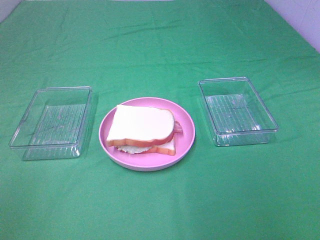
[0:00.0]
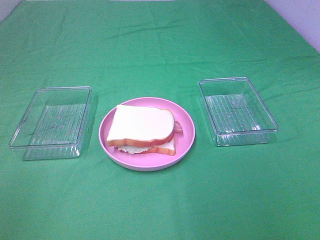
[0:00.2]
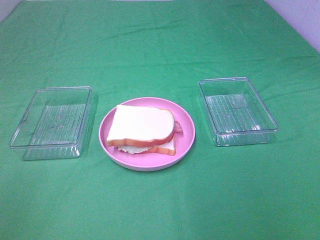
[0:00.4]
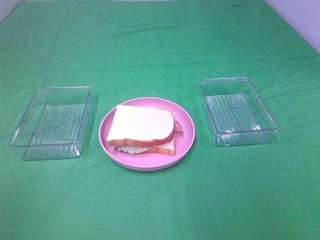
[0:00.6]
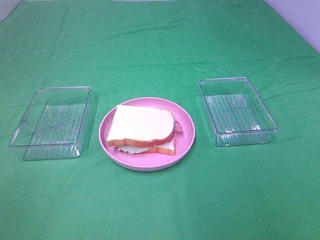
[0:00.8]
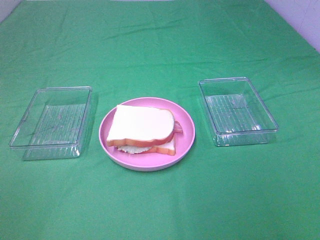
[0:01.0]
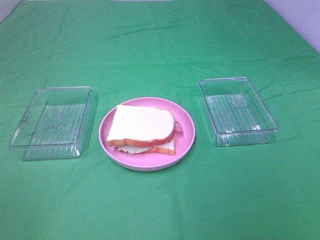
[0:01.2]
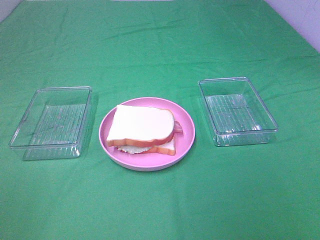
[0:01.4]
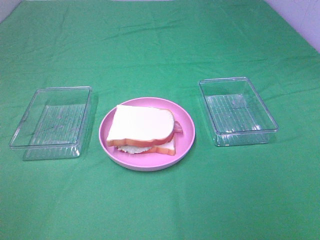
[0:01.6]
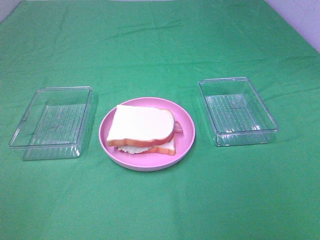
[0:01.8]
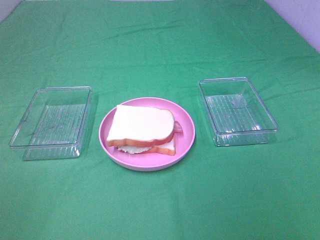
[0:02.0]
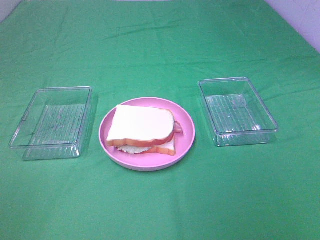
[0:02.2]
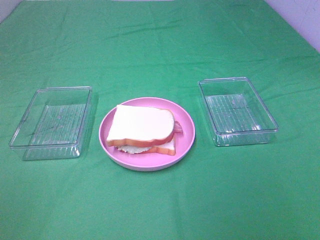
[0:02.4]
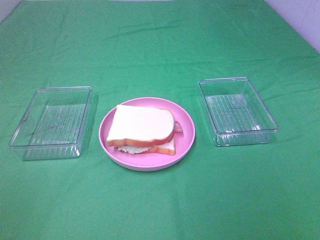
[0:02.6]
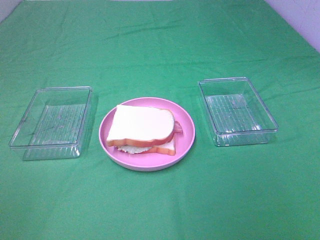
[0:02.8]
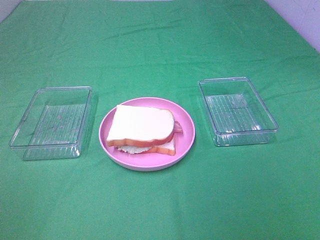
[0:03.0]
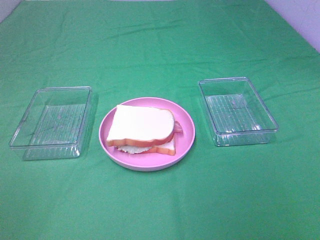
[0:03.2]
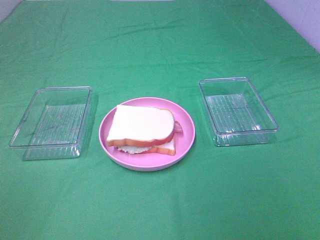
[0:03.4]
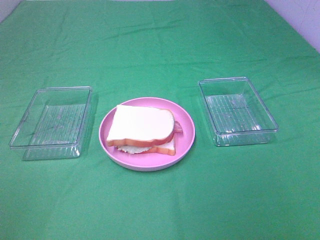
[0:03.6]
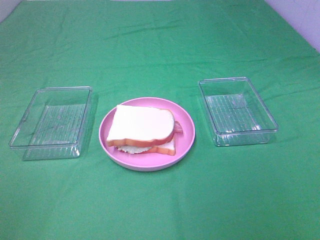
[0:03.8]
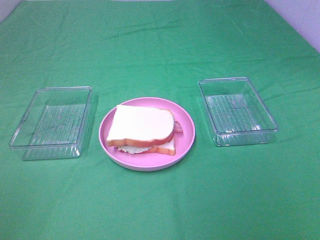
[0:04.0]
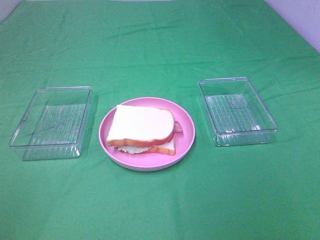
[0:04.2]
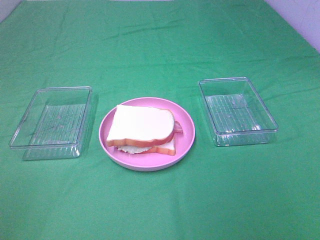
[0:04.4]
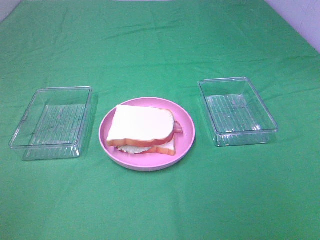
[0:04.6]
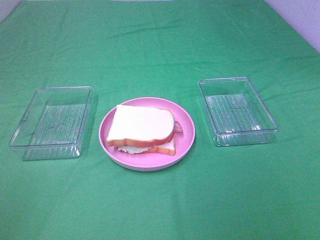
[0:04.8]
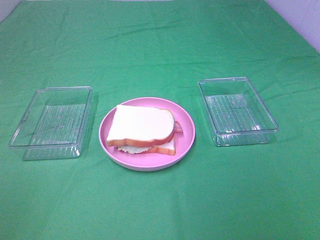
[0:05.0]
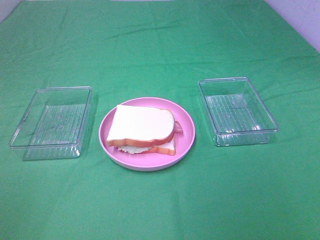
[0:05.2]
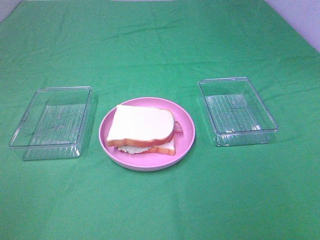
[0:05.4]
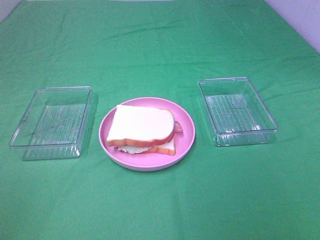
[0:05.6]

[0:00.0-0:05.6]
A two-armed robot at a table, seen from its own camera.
Task of the whole recording: Make sandwiches.
1.4 to 2.8 s: Neither gripper changes place.
2.8 to 5.6 s: Both grippers stay about where they are.

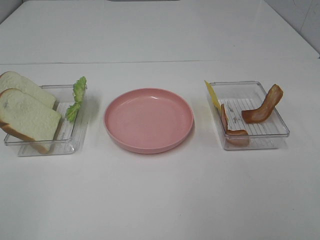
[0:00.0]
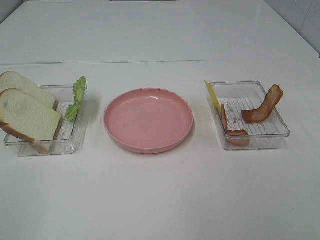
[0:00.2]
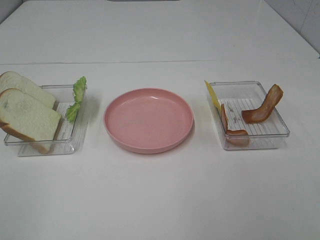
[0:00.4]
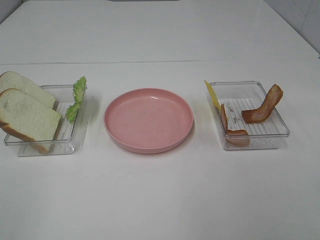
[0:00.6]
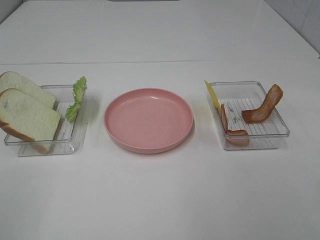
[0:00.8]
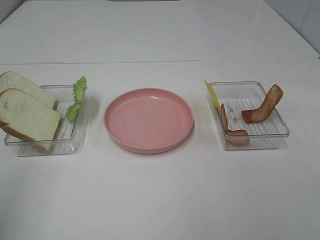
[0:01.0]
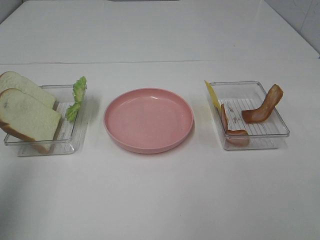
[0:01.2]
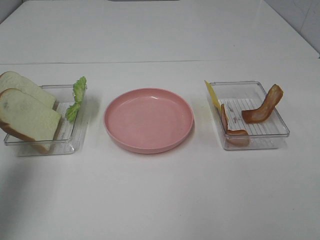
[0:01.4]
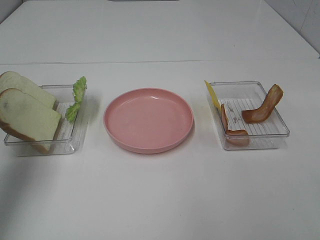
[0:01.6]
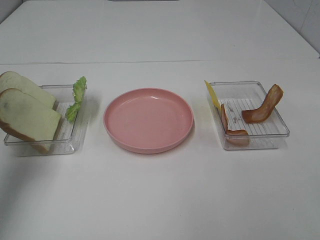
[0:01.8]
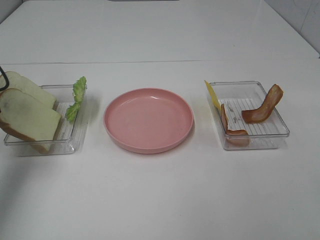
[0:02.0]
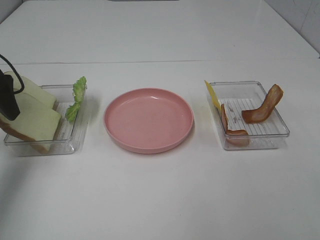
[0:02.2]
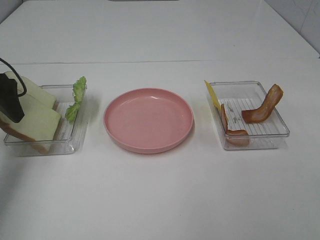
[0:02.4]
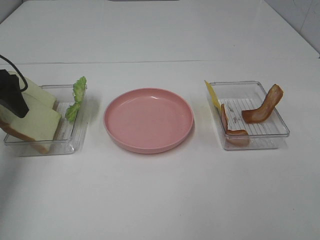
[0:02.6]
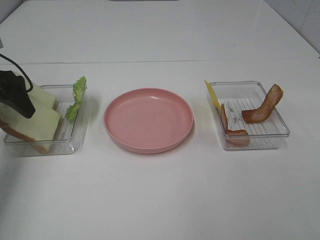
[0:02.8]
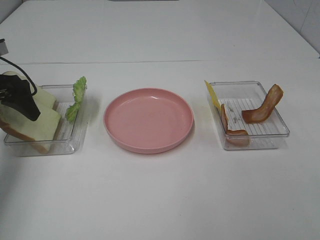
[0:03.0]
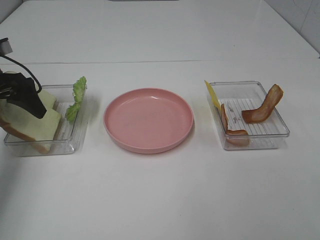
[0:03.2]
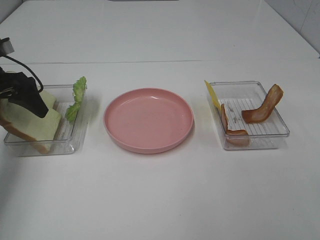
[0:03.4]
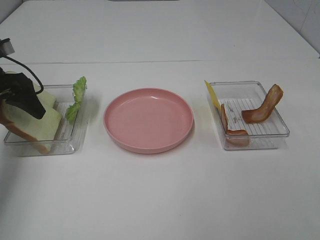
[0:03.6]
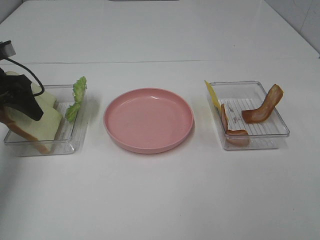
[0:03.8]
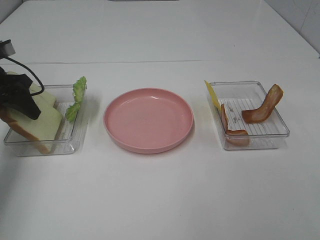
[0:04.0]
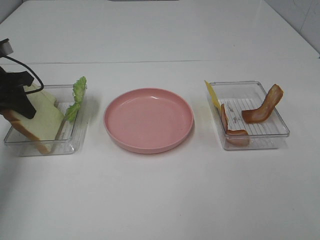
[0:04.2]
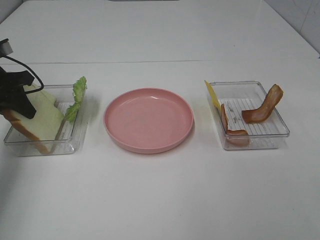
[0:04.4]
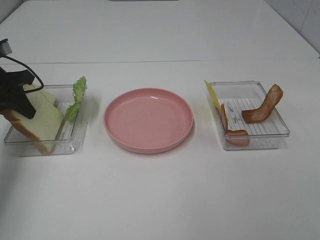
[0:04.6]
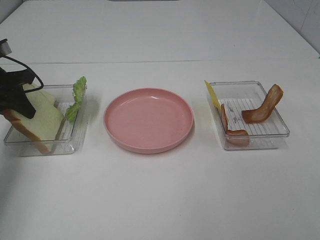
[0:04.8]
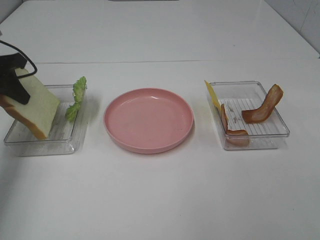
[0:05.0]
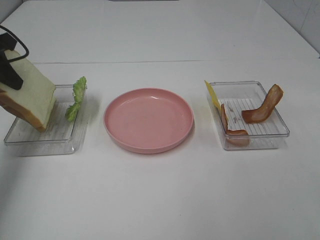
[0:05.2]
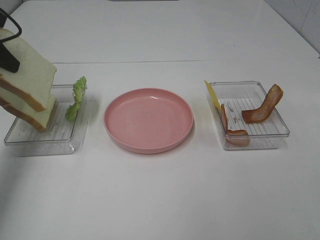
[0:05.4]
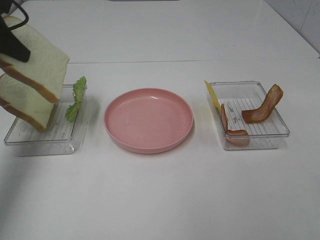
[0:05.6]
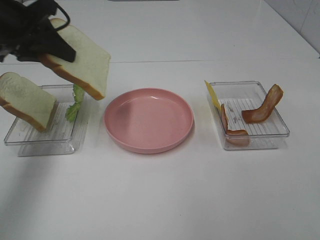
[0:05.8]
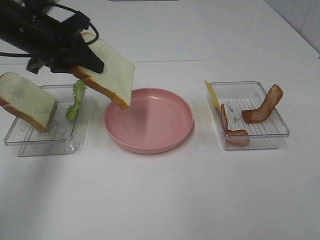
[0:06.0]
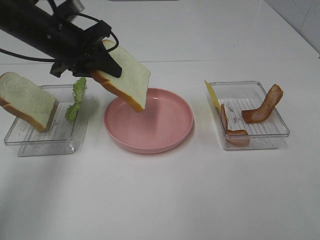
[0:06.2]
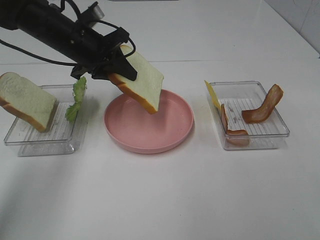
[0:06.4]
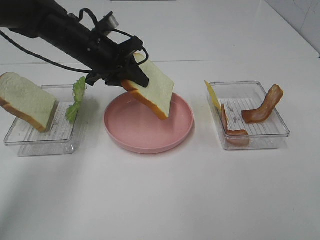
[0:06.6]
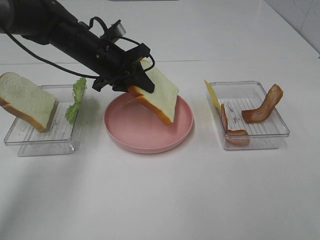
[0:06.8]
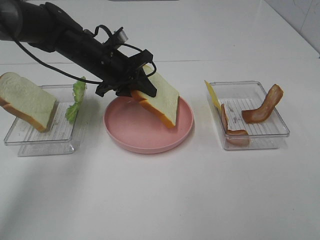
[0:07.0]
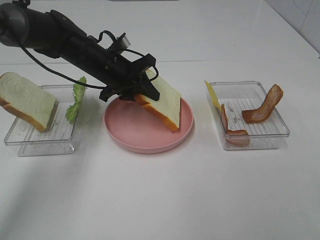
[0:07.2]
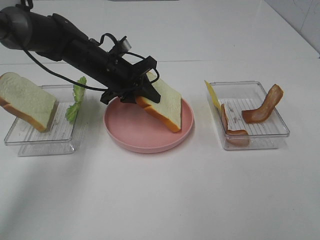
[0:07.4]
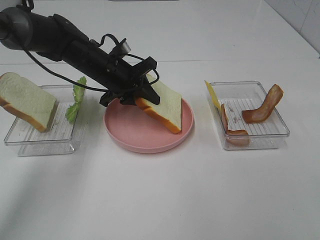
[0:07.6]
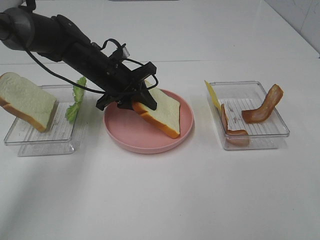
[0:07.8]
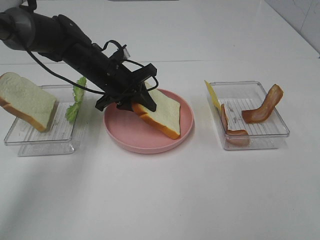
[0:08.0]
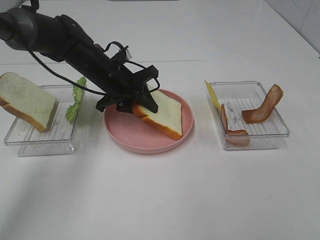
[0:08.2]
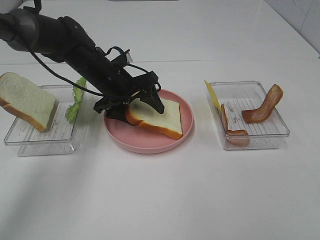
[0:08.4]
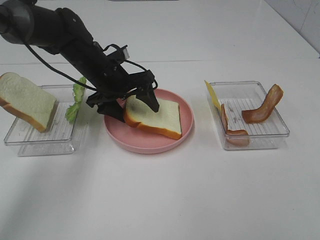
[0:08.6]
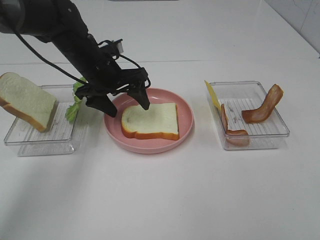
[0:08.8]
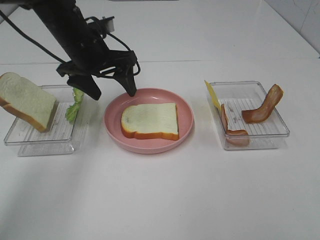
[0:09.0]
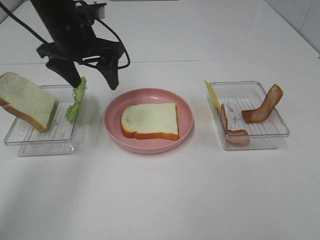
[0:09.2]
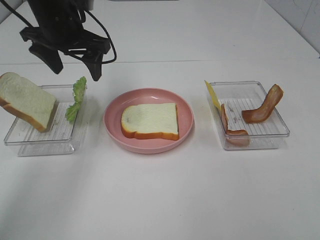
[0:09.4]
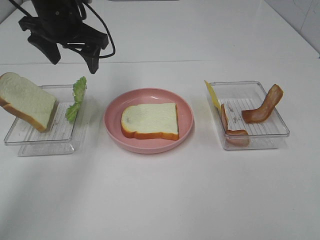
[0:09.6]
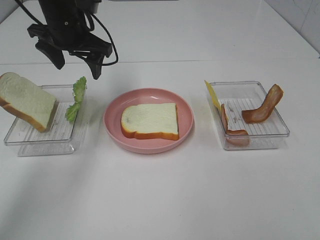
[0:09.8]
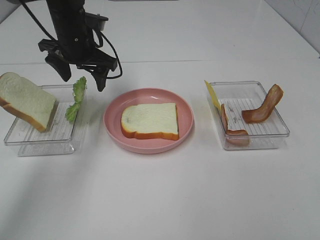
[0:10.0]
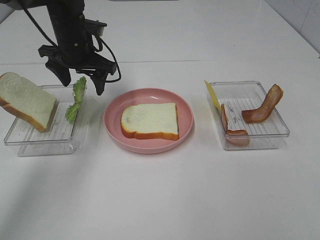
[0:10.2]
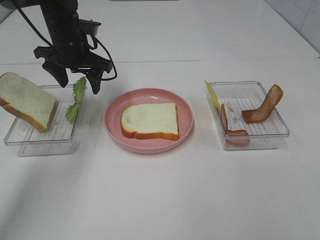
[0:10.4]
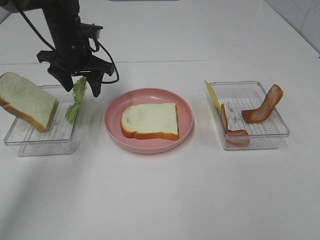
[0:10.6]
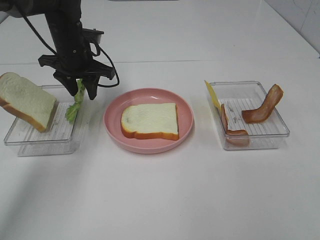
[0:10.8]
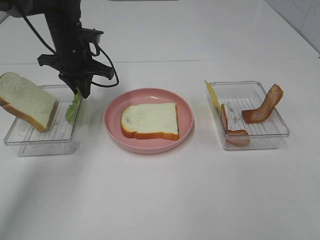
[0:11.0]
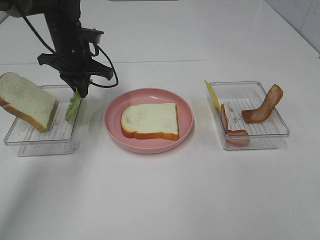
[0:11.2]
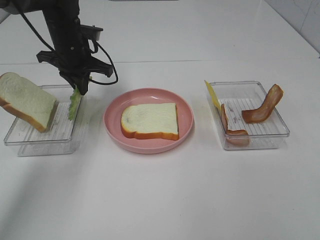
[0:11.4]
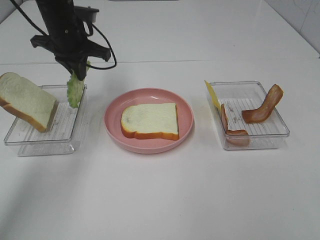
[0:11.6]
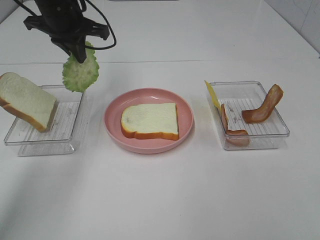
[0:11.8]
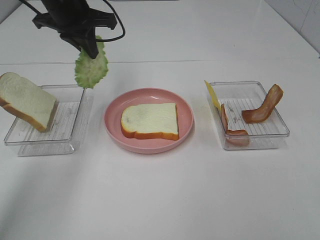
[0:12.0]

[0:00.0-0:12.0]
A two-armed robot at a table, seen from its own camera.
Task of the whole recording: Make sandwiches.
Step, 0.0 to 4.4 s: Left hand:grab the bread slice.
Step, 4.6 to 8.8 s: Left hand:place the bread slice on the plate.
Step, 9.0 to 11.2 s: Left hand:grab the lettuce slice.
0.0 to 1.6 s: The left gripper heads forward, covering about 25 cm.
1.6 to 3.0 s: The left gripper goes approximately 15 cm downward and forward.
3.0 to 4.4 s: The left gripper closes its fingers.
4.4 to 6.0 s: The left gripper shifts about 15 cm to the right and upward.
6.0 to 7.6 s: The left gripper is displaced downward, to the right and forward by some 15 cm.
7.6 to 9.0 s: The left gripper is displaced upward by approximately 10 cm, and opens up.
9.0 to 10.4 s: The left gripper shifts about 5 cm forward.
10.4 to 12.0 s: The left gripper is displaced upward by some 10 cm, and closes.

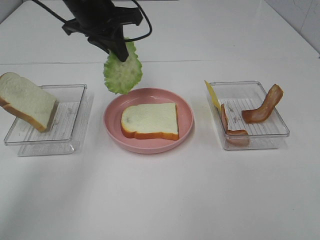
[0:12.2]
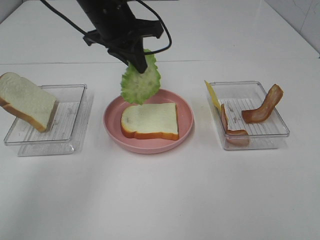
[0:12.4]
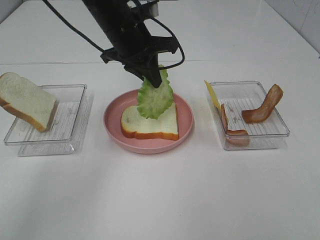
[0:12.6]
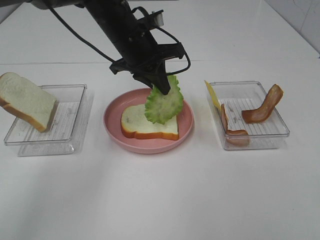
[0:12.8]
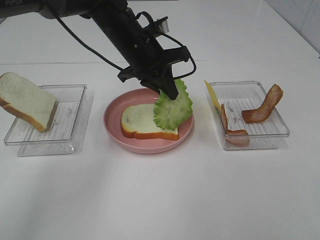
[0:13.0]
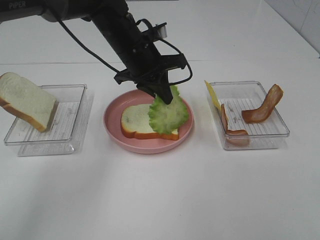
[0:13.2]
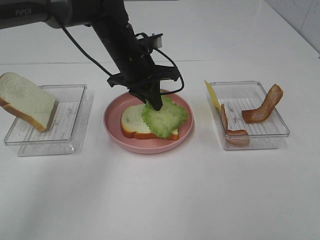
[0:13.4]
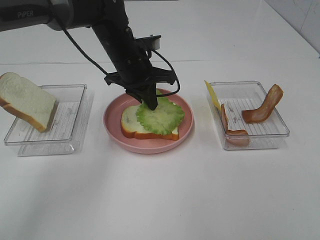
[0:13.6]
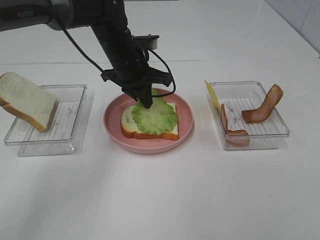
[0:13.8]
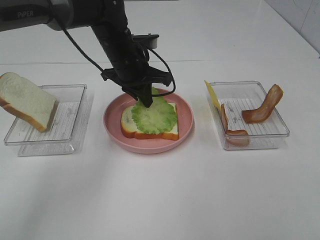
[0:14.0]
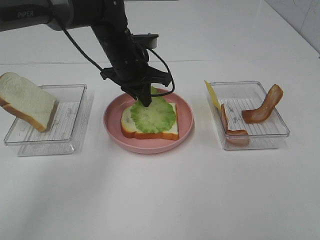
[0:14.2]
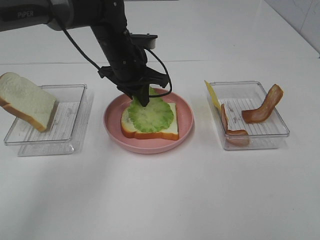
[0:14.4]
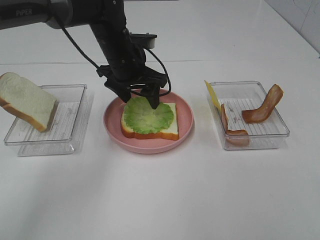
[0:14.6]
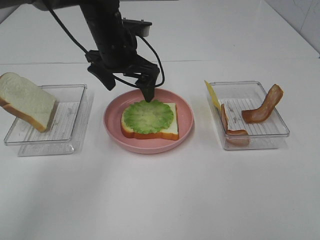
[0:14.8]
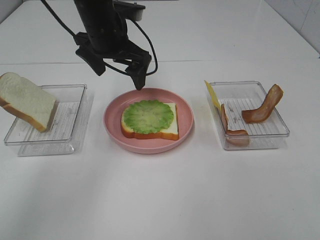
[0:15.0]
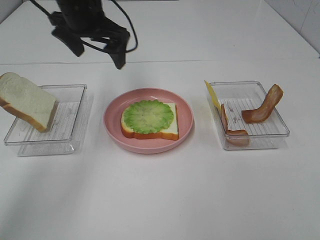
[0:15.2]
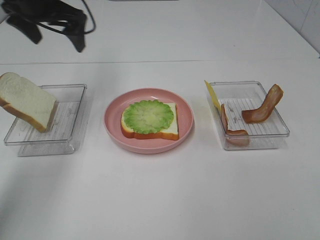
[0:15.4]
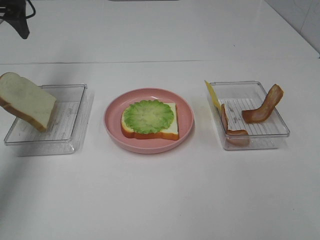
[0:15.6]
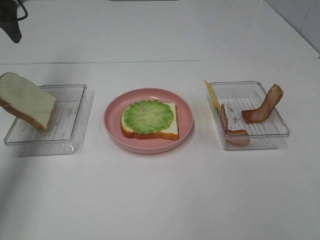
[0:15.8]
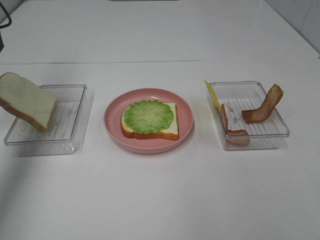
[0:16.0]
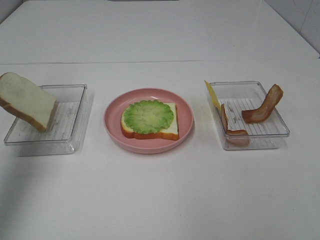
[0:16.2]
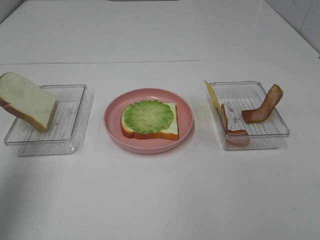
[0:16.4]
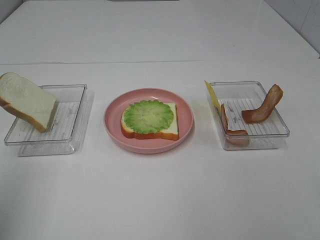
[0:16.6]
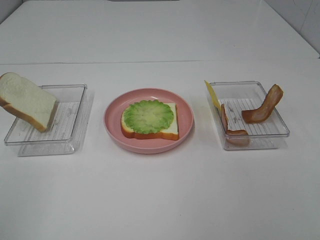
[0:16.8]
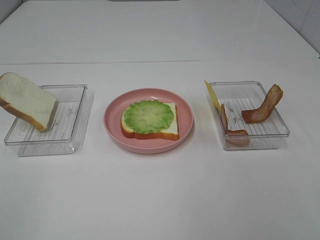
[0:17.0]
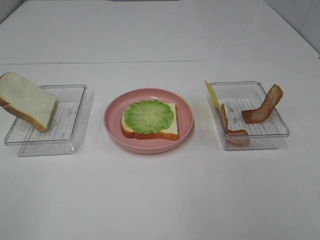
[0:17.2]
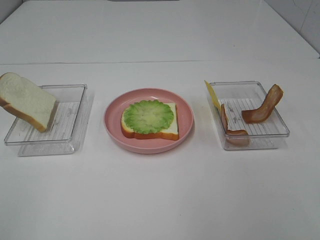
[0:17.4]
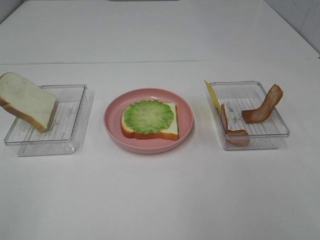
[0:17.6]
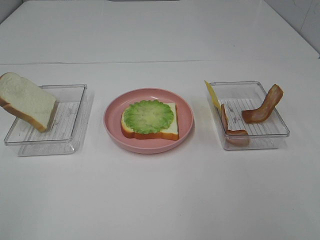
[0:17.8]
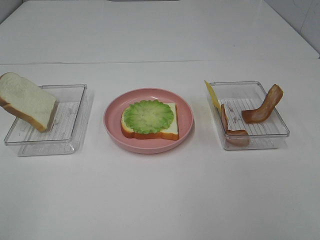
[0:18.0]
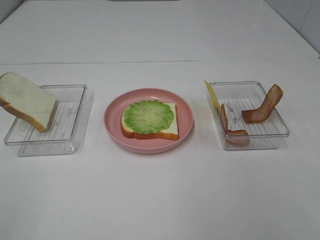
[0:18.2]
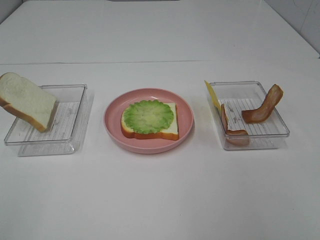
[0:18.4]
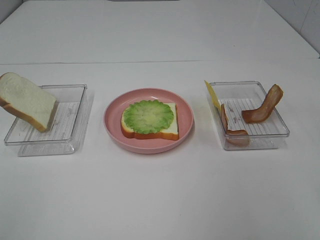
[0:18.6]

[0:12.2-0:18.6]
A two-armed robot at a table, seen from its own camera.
Task of the whole recording: Make sandwiches.
Step, 12.2 to 14.6 s: Left hand:place the lettuce slice on the bread slice.
12.2 to 13.8 s: The left gripper heads downward and to the right, covering roughly 10 cm.
13.8 to 15.4 s: The left gripper shifts some 20 cm to the left and upward, and opens its fingers.
15.4 to 17.0 s: The left gripper goes some 50 cm backward.
